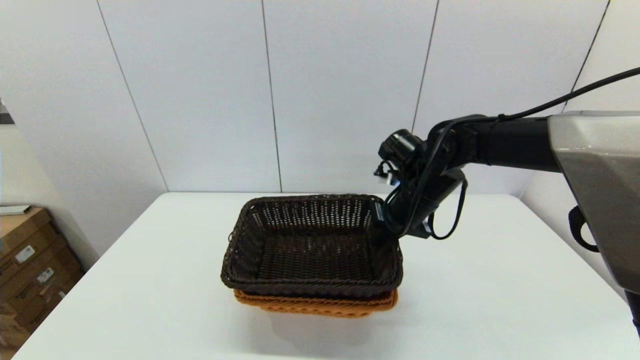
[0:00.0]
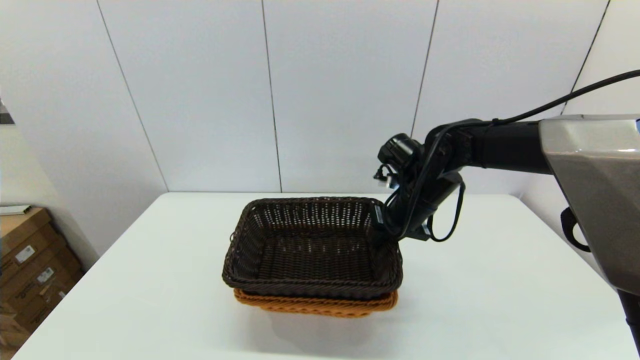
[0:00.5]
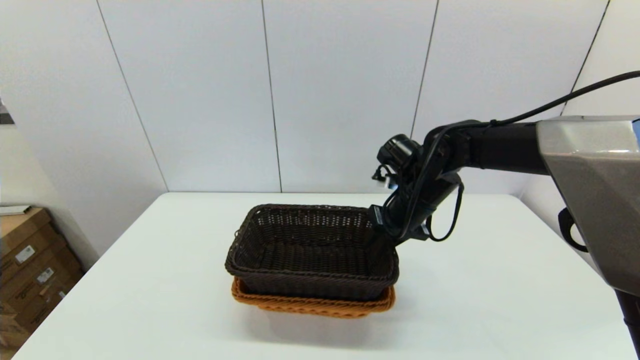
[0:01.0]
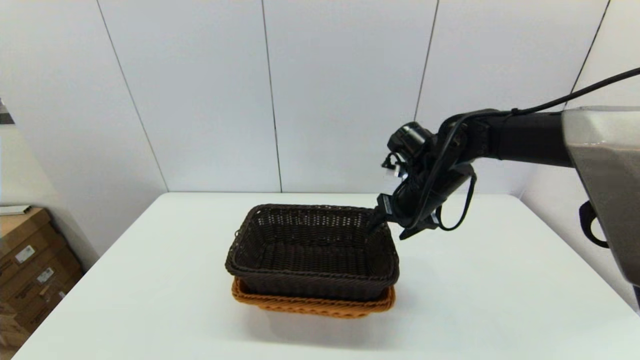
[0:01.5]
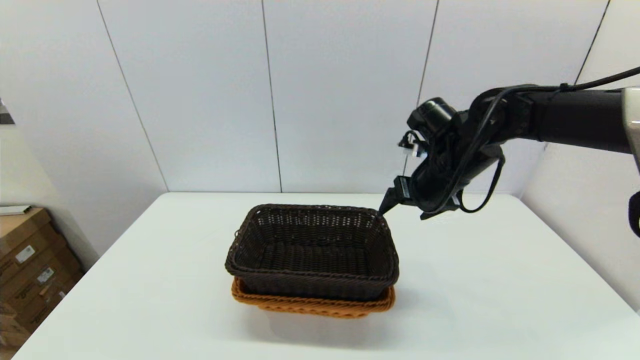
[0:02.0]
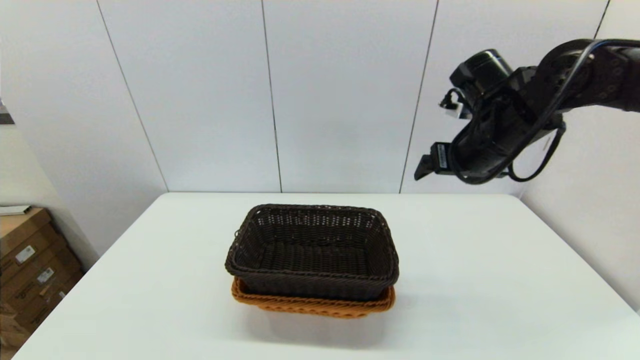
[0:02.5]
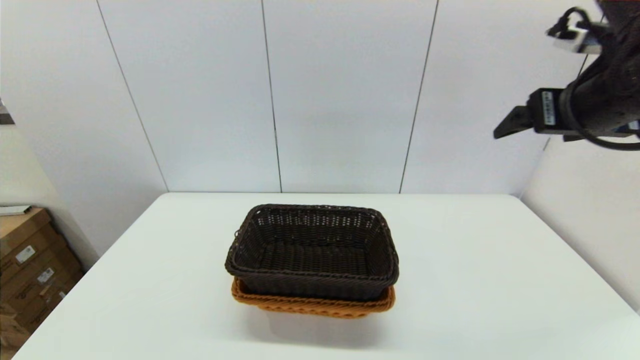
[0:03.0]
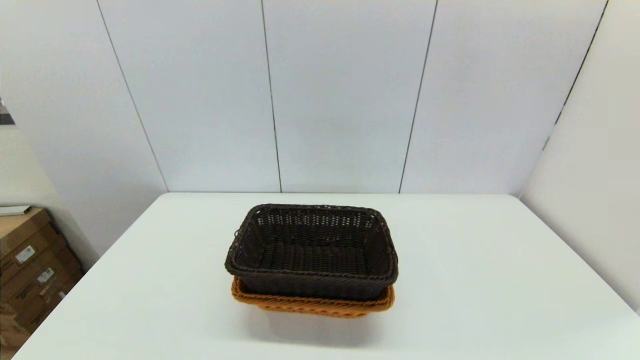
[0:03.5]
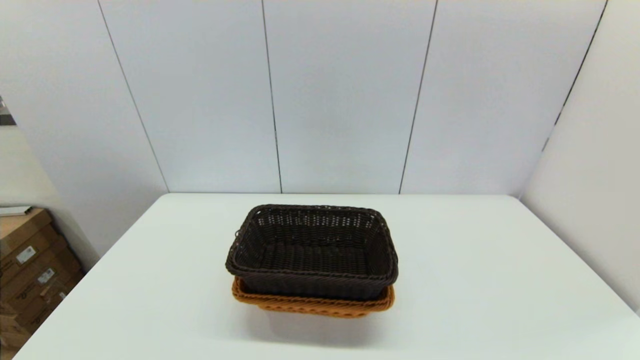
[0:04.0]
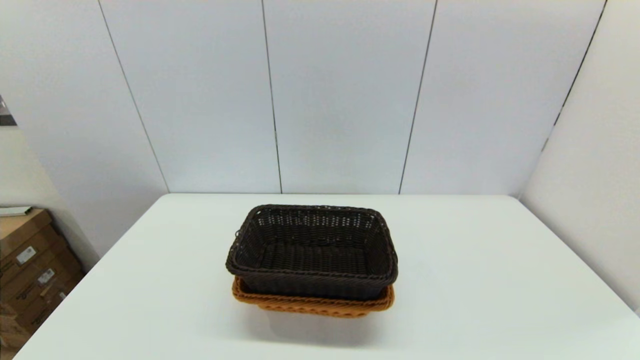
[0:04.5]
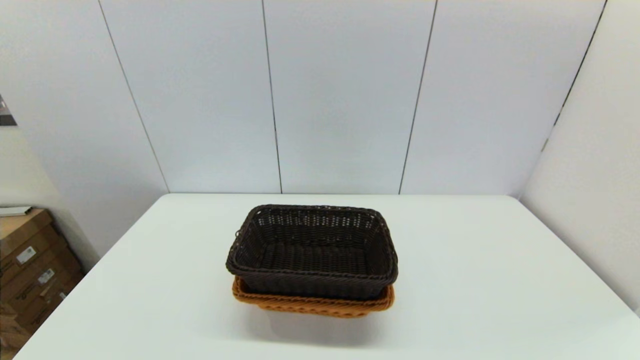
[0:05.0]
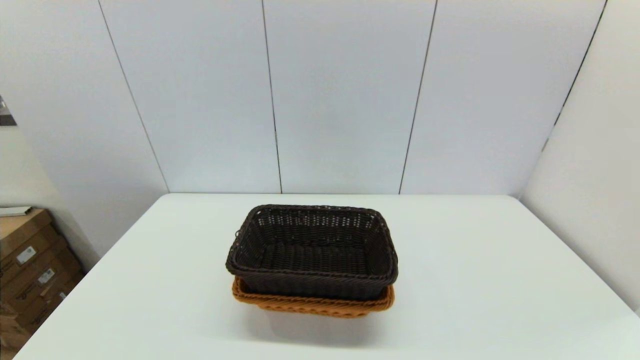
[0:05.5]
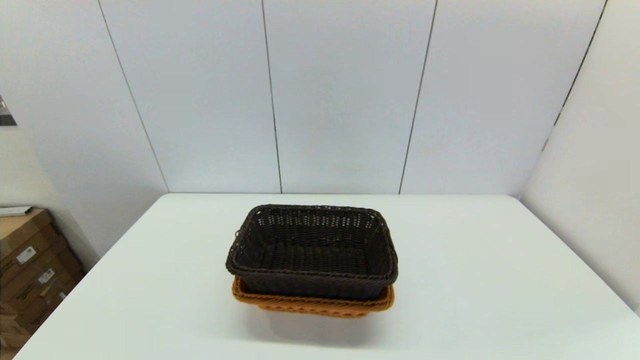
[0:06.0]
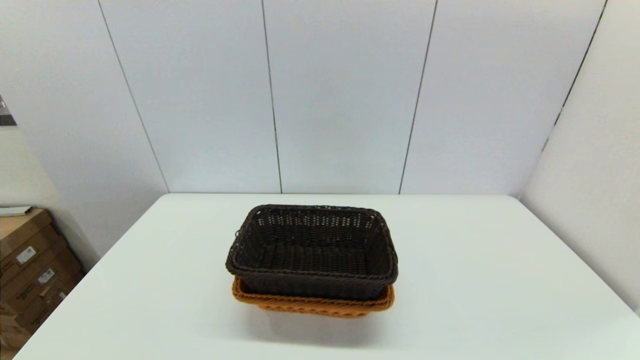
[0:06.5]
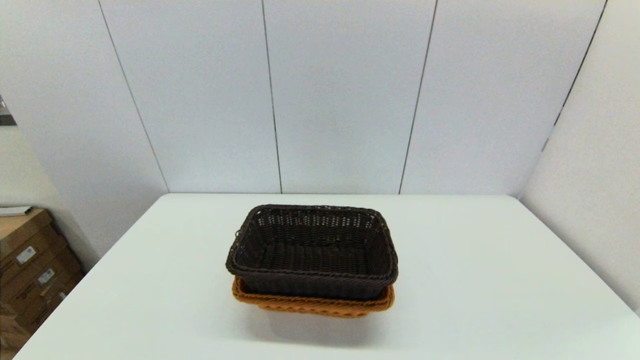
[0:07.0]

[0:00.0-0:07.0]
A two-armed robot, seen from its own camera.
Task of the whole recording: stack a basket on top of another basket.
Step, 0:00.0 to 0:02.0: Place the dark basket into the light color basket with the right gripper.
0:00.0 to 0:02.0: The right gripper changes place by approximately 5 cm, and opens.
0:02.0 to 0:03.5: The right gripper travels backward, upward and to the right by some 35 cm.

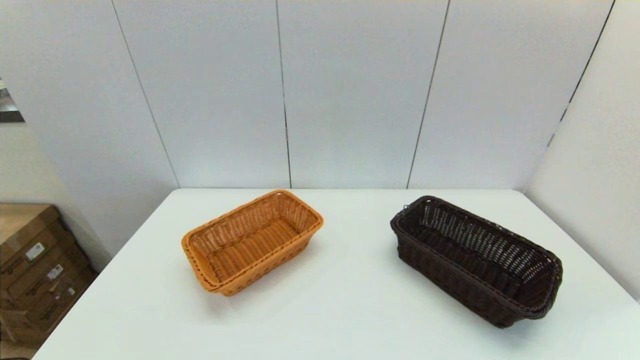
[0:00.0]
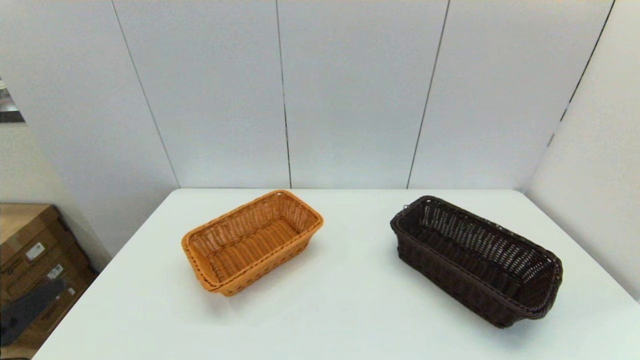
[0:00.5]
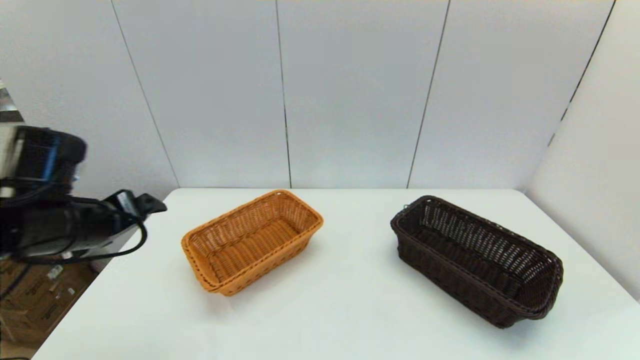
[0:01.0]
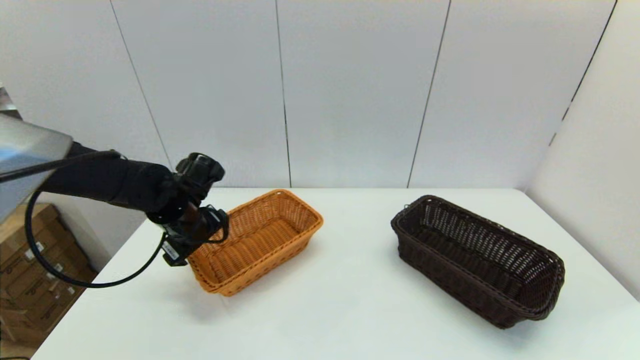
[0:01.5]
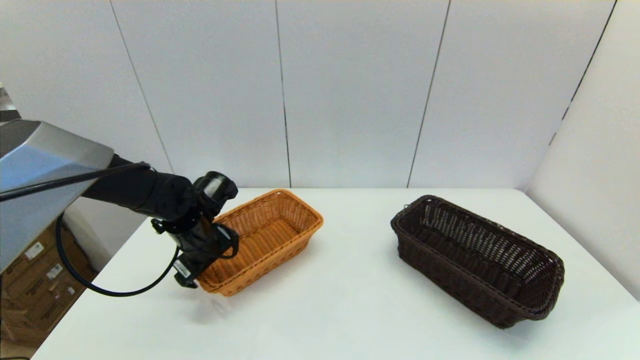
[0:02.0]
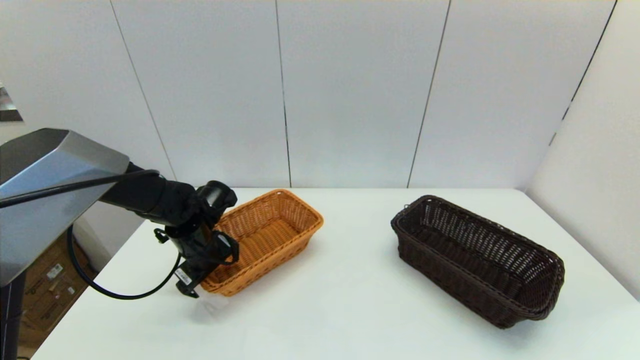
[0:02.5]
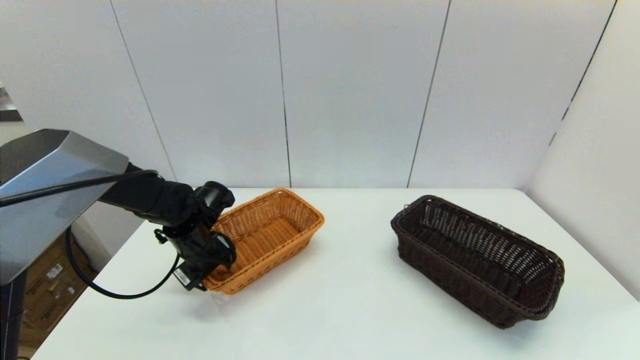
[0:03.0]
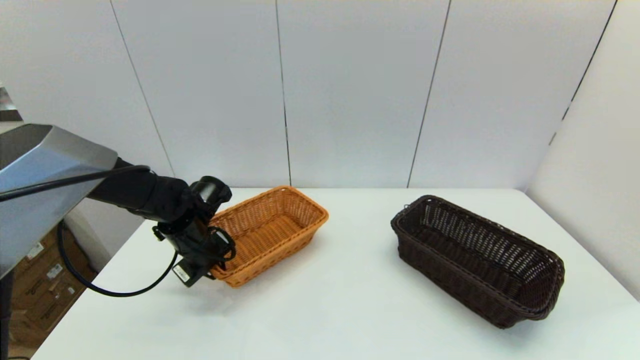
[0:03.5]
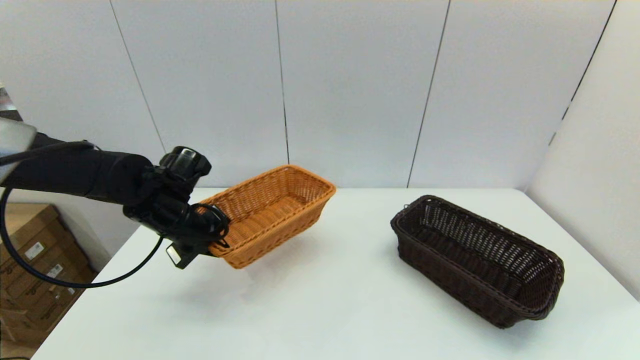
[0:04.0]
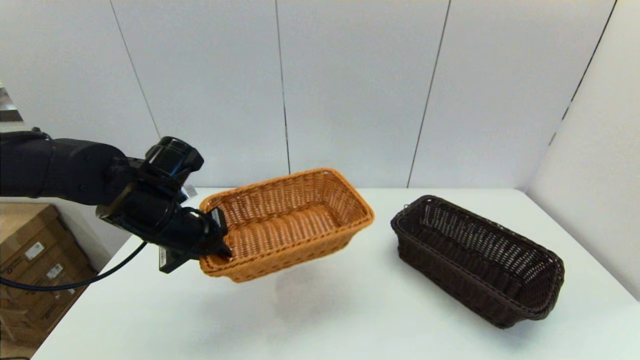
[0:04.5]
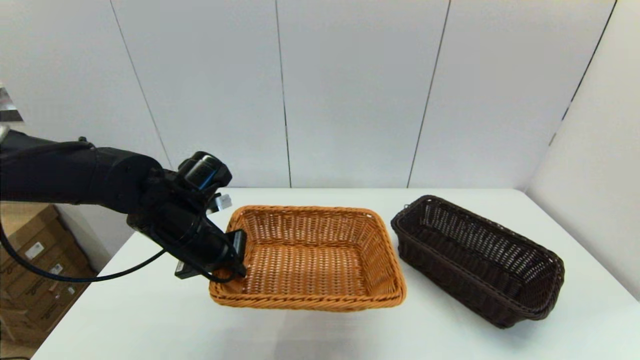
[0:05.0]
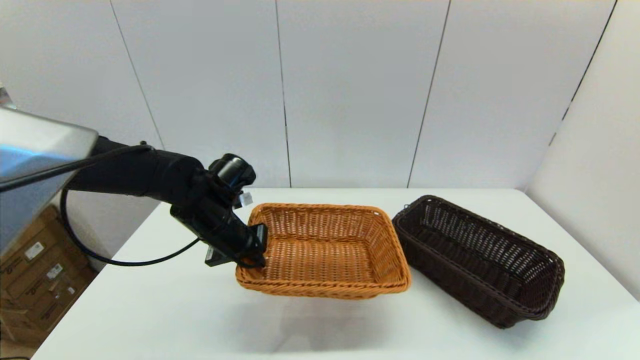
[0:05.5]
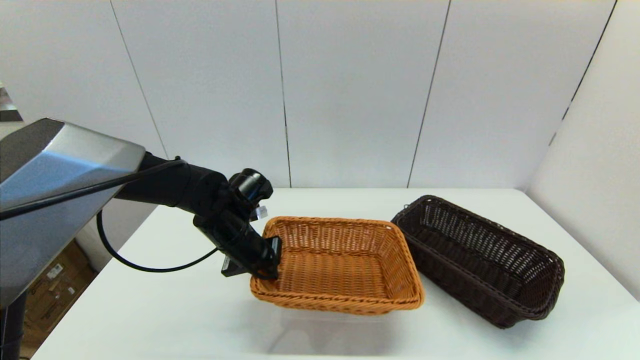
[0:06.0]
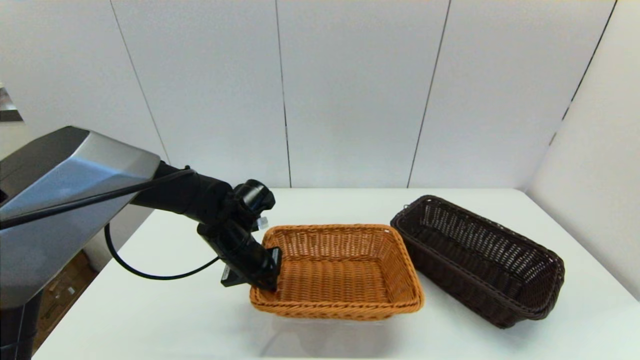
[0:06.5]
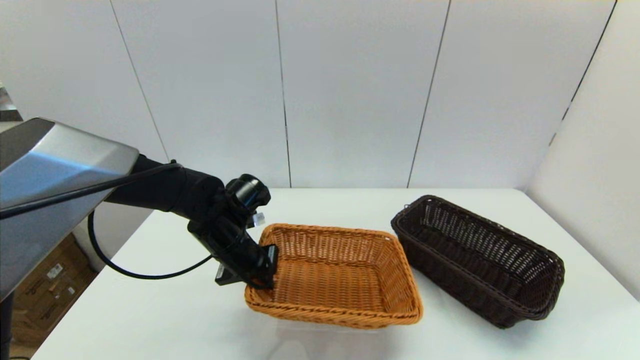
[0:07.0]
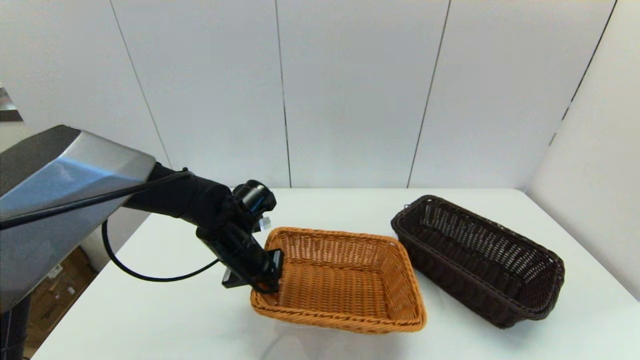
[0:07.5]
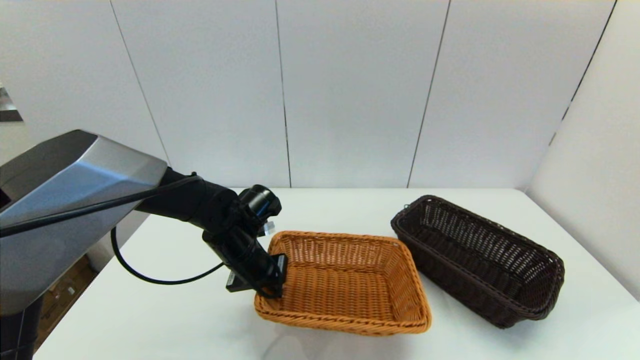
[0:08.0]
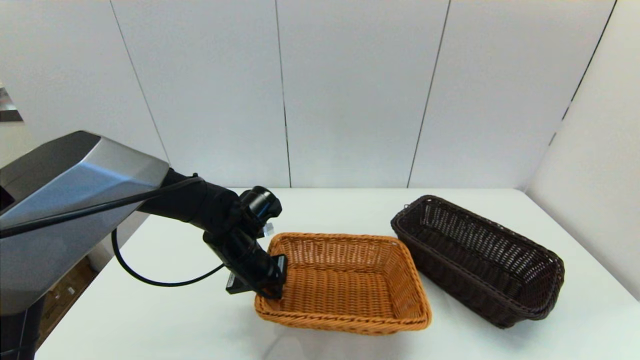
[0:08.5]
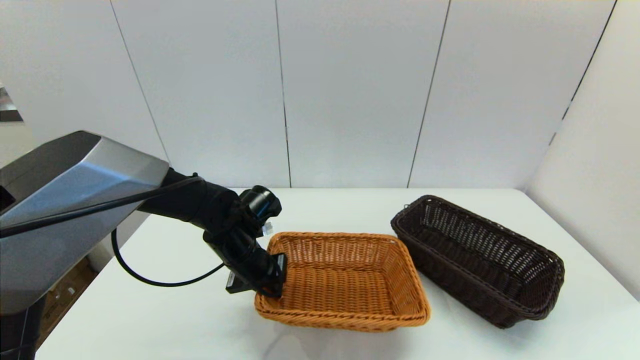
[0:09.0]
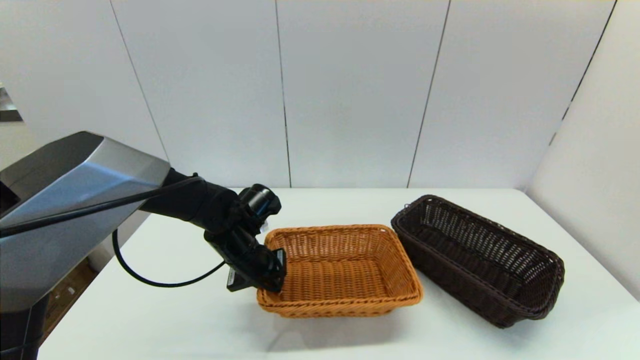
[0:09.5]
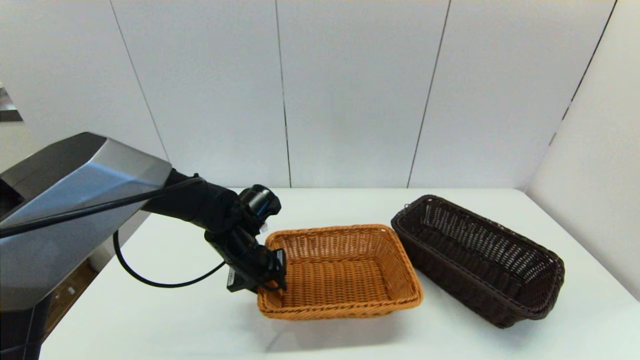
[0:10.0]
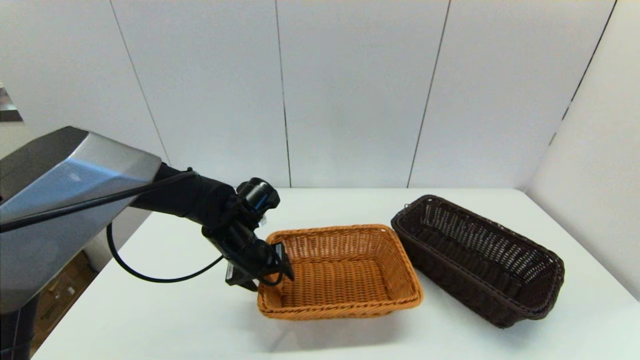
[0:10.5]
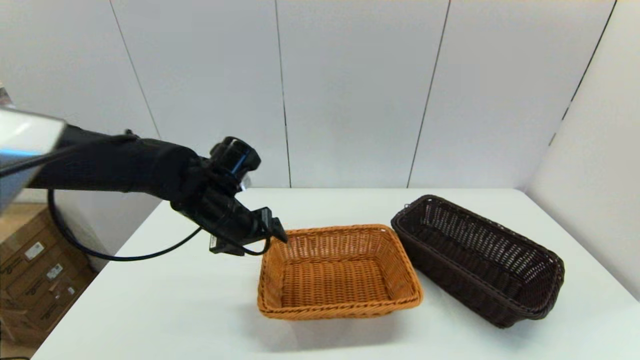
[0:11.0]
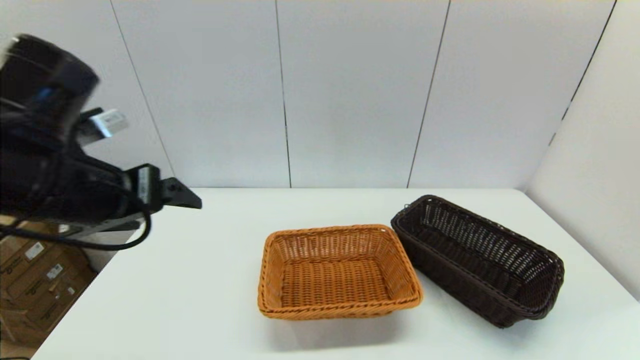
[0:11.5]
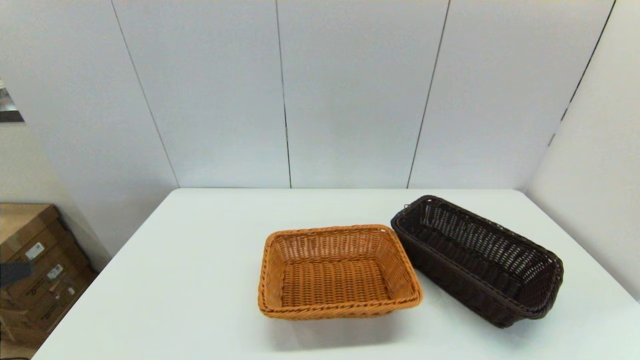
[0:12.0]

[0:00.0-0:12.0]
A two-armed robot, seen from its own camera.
Task of the whole recording: stack a basket on top of another basket.
Step, 0:00.0 to 0:03.5: Grasp the light basket with the left gripper.
Step, 0:04.5 to 0:11.5: Place the light basket on the middle of the table with the left gripper.
0:00.0 to 0:02.0: The left gripper travels forward by roughly 35 cm.
0:02.0 to 0:04.0: The left gripper goes approximately 5 cm upward, and closes up.
0:04.0 to 0:06.0: The left gripper is displaced to the right by about 10 cm.
0:06.0 to 0:08.0: There are only small adjustments of the grippers.
0:08.0 to 0:10.0: The left gripper opens up.
0:10.0 to 0:12.0: The left gripper is displaced backward, upward and to the left by roughly 40 cm, and opens its fingers.

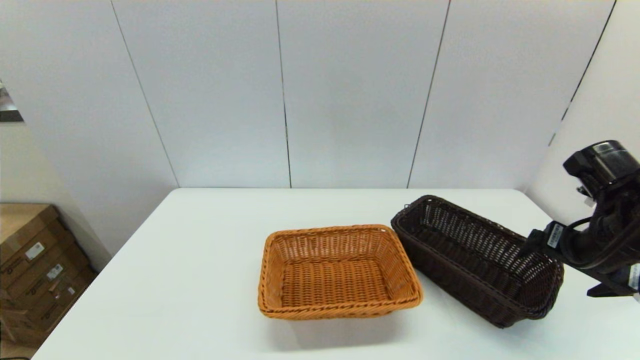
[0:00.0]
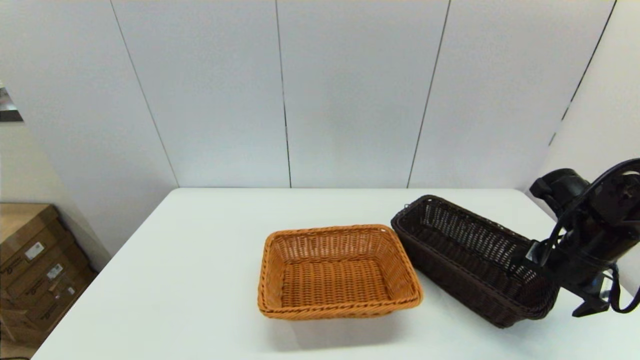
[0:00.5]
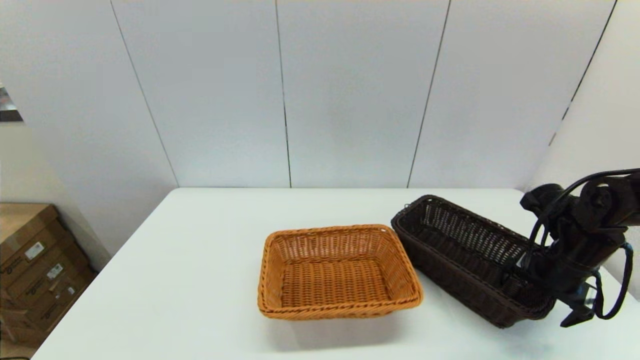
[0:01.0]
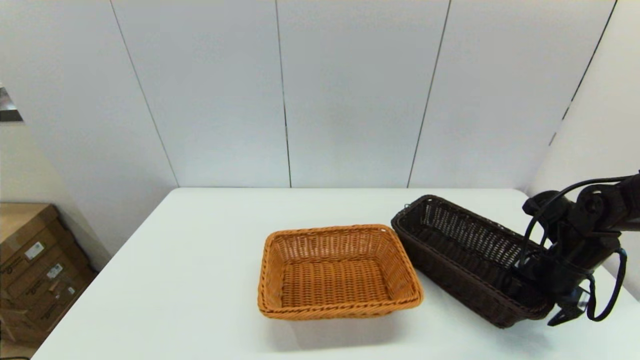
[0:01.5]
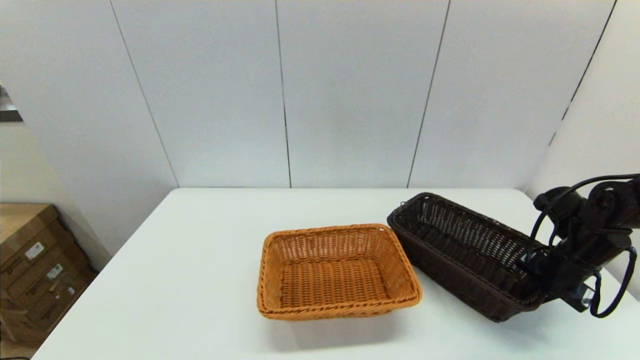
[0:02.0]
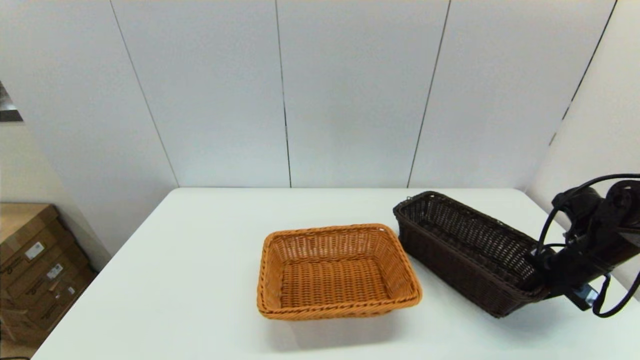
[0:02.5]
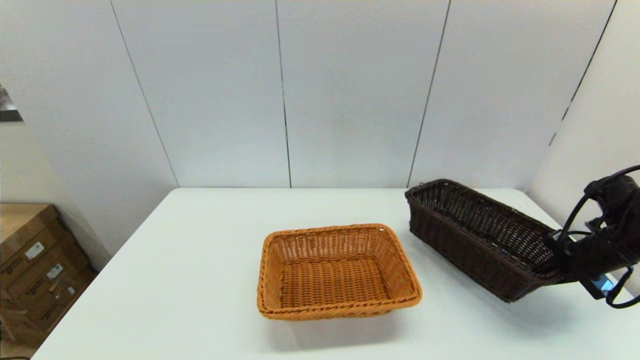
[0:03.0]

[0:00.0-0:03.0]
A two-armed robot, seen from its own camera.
Task of the whole recording: stack a basket on top of another basket.
Step, 0:00.0 to 0:02.5: Grasp the dark basket with the right gripper.
0:00.0 to 0:01.5: The right gripper shifts approximately 10 cm downward and forward.
0:01.5 to 0:03.0: The right gripper heads to the right, covering about 5 cm, and closes.
